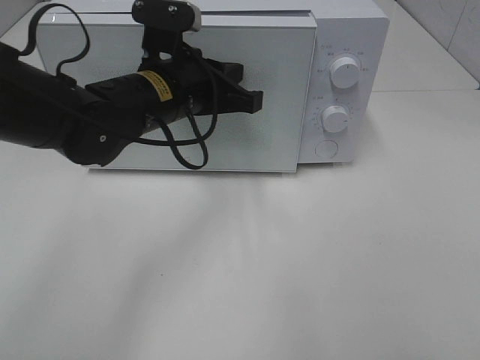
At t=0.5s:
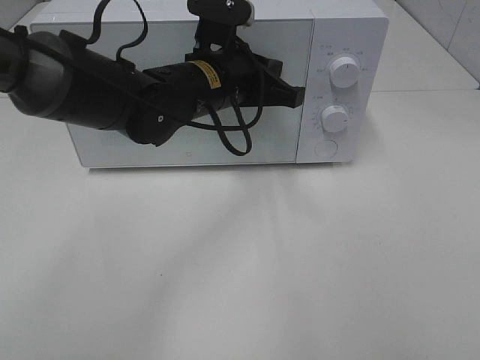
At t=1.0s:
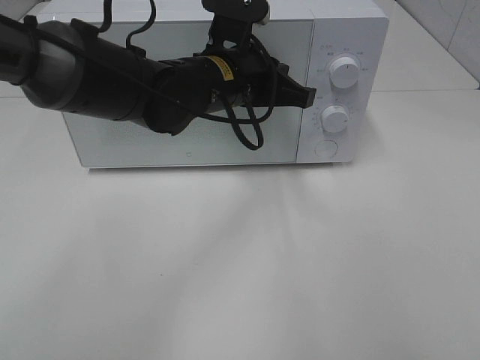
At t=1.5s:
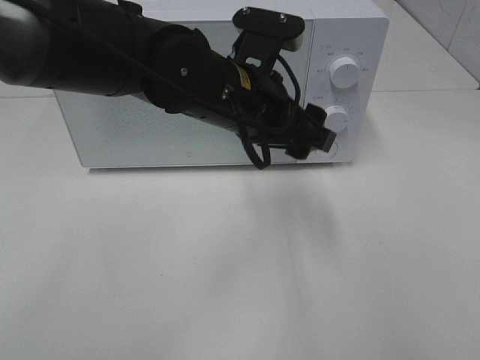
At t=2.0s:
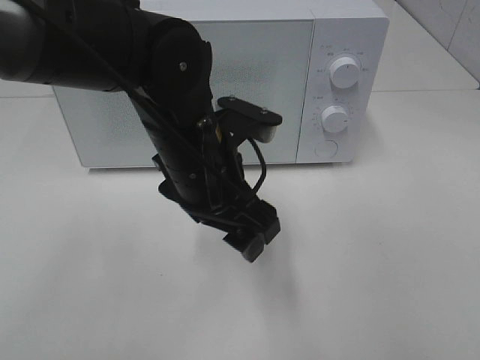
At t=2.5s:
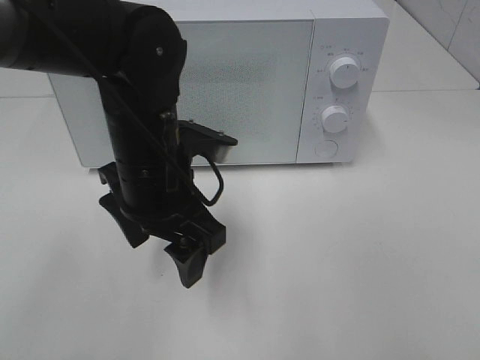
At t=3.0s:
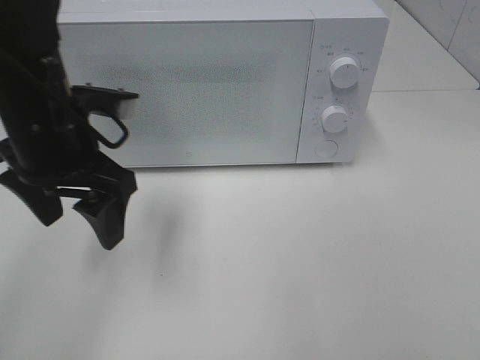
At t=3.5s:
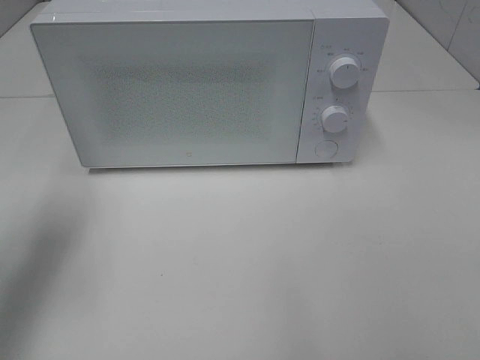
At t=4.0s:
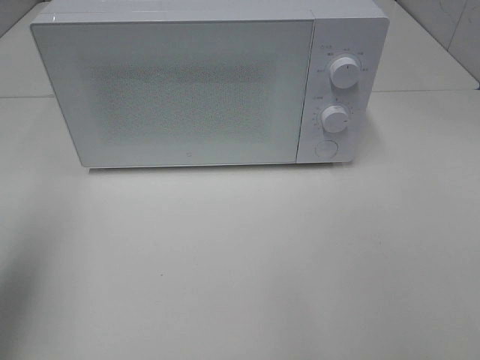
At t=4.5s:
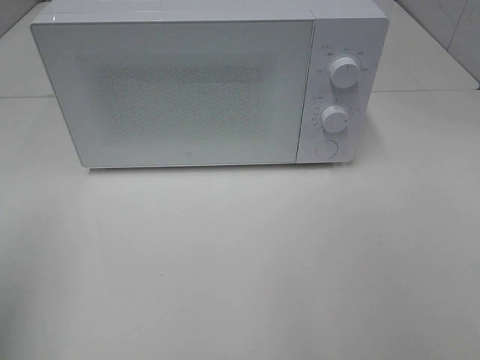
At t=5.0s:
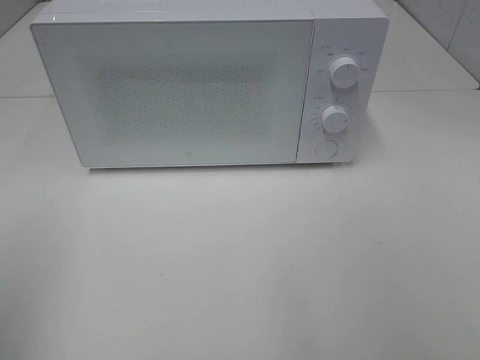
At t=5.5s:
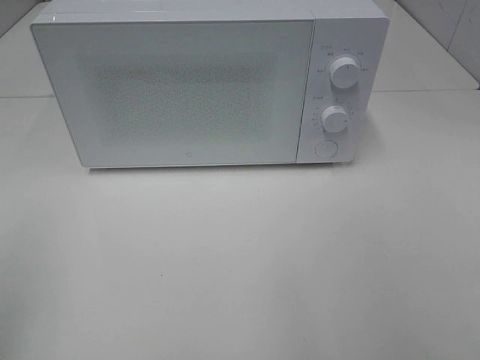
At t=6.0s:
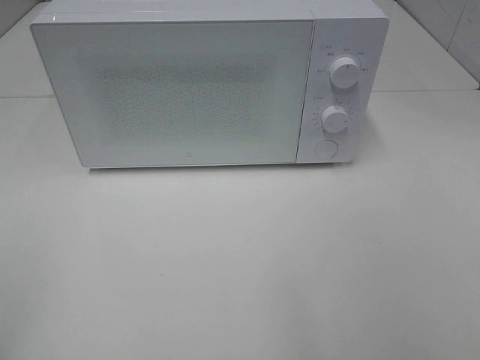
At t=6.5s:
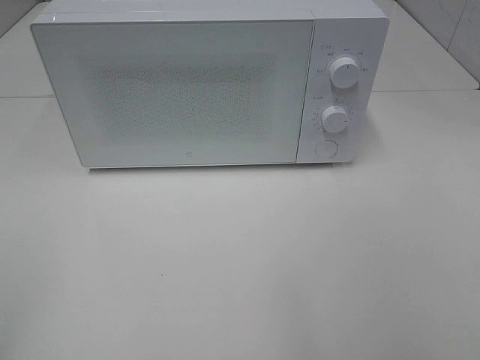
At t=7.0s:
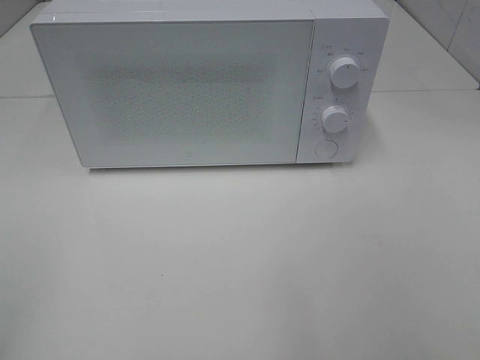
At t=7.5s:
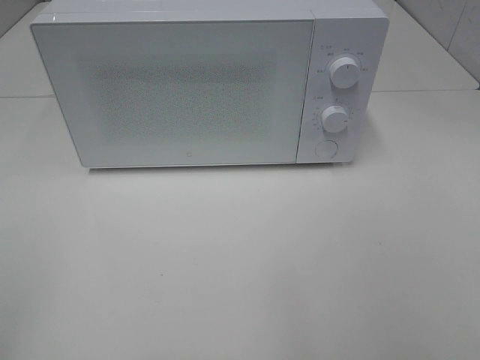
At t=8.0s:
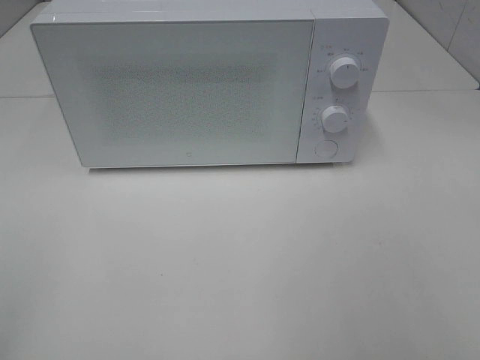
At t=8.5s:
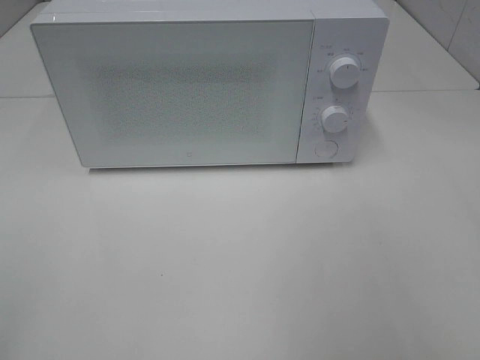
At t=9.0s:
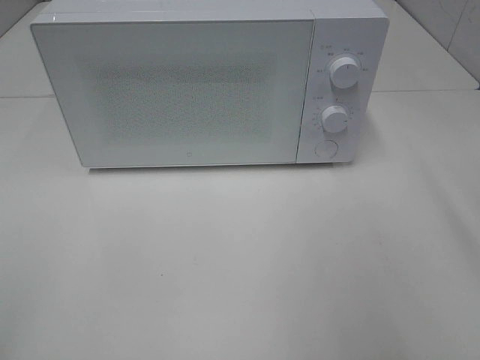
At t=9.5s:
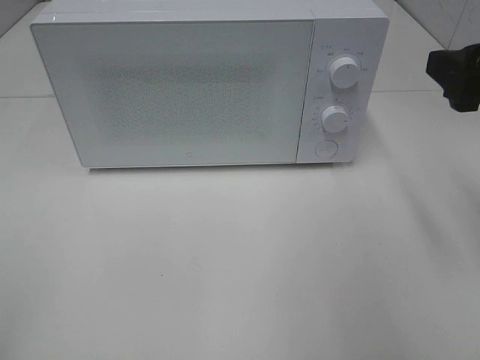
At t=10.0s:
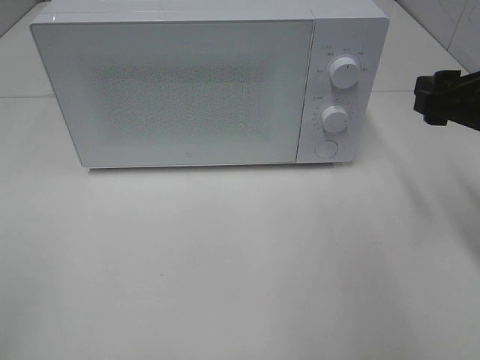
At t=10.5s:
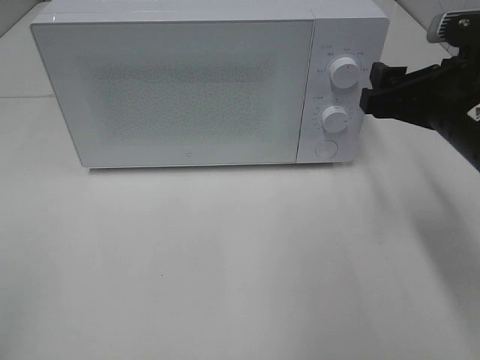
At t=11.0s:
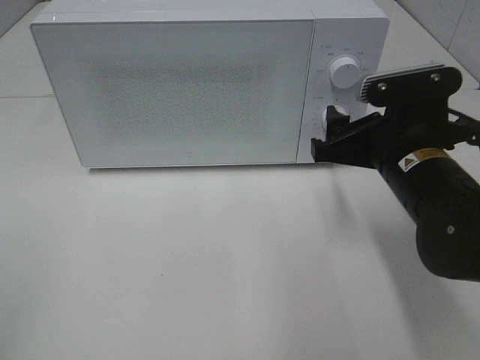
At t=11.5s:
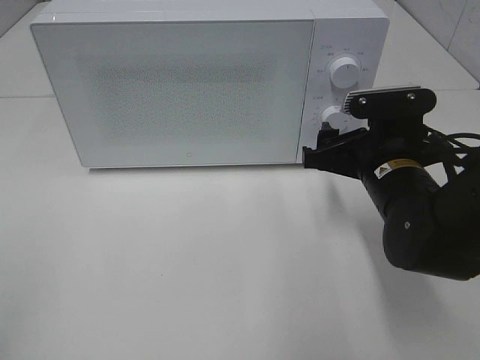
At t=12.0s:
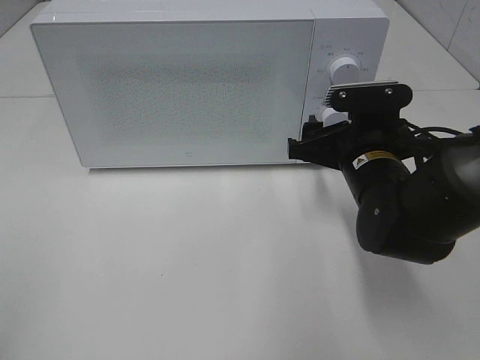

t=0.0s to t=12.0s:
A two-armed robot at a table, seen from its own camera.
Task of the whole recording: Heat the burger.
t=0.0s to t=2.0s: The left gripper is displaced backward by roughly 10 cm, and opens.
t=2.0s to t=4.0s: The left gripper moves to the left, about 30 cm.
t=4.0s to t=6.0s: The left gripper moves backward, some 15 cm.
t=8.0s to t=10.0s: The right gripper goes some 25 cm forward and downward.
t=10.0s to t=12.0s: The right gripper moves to the left and downward, some 15 cm.

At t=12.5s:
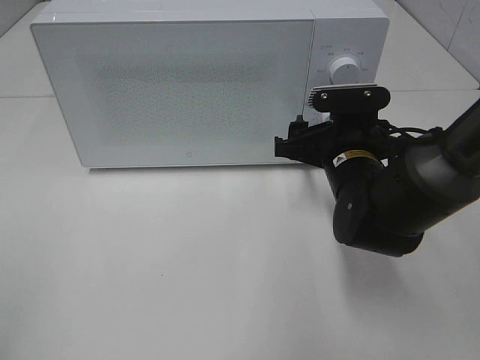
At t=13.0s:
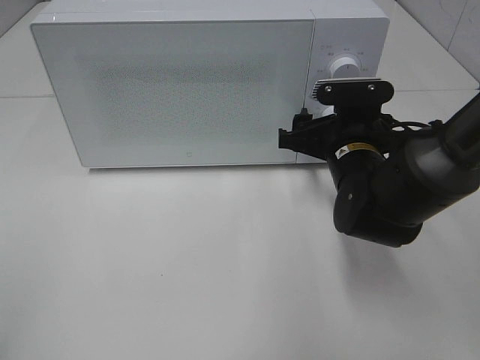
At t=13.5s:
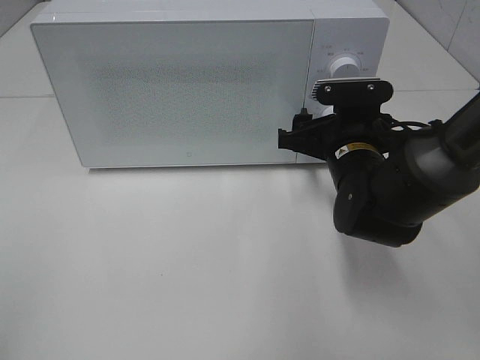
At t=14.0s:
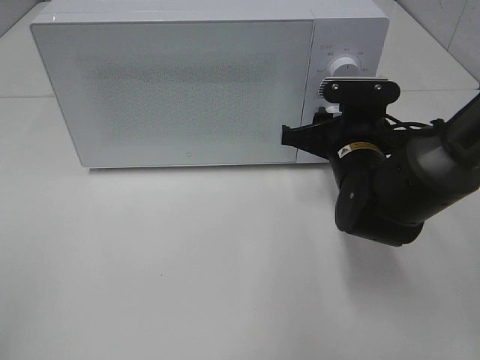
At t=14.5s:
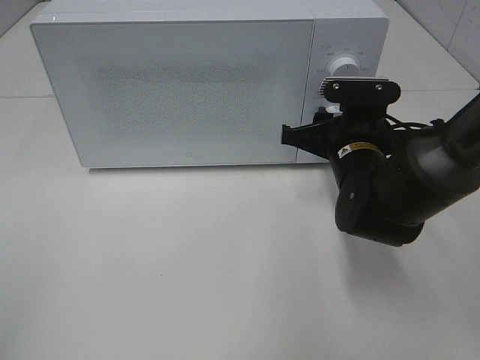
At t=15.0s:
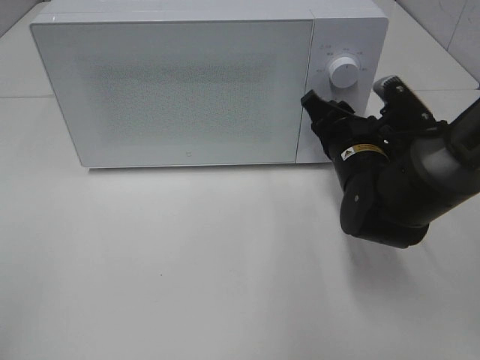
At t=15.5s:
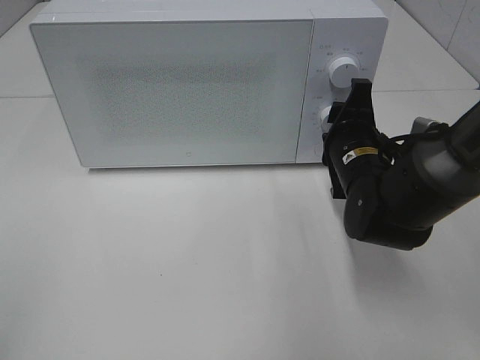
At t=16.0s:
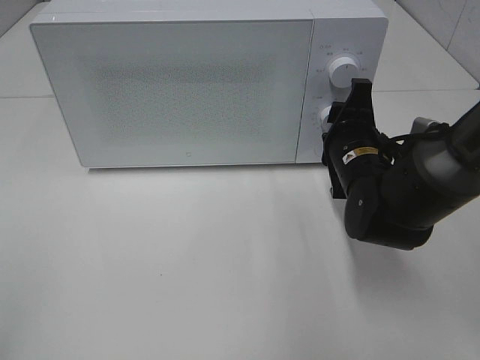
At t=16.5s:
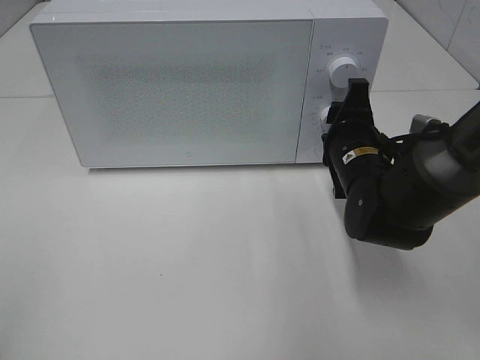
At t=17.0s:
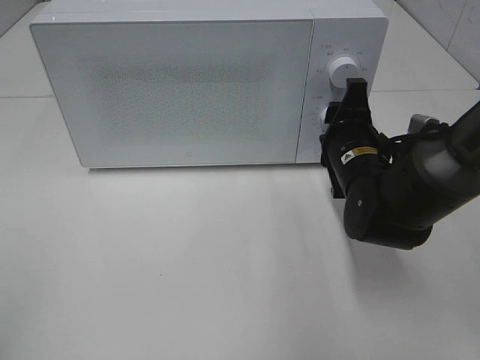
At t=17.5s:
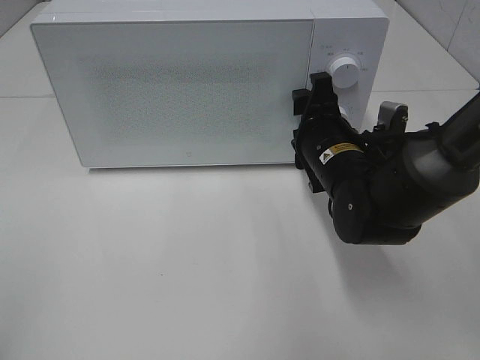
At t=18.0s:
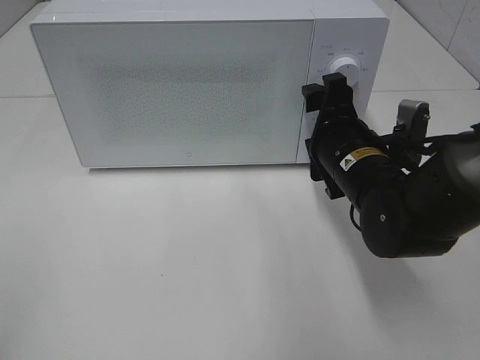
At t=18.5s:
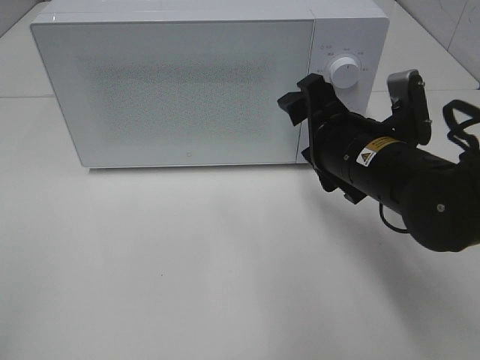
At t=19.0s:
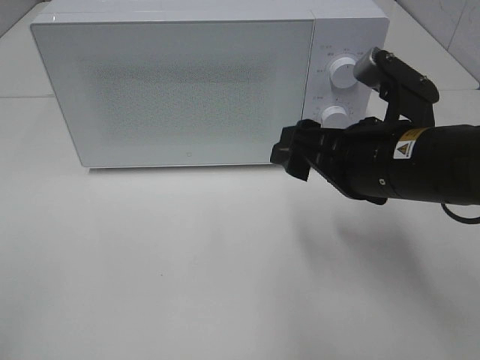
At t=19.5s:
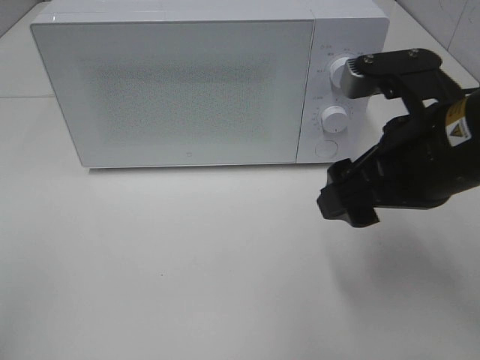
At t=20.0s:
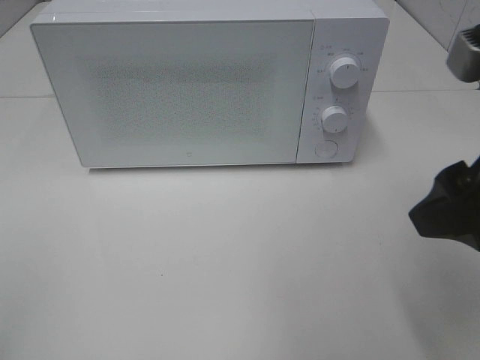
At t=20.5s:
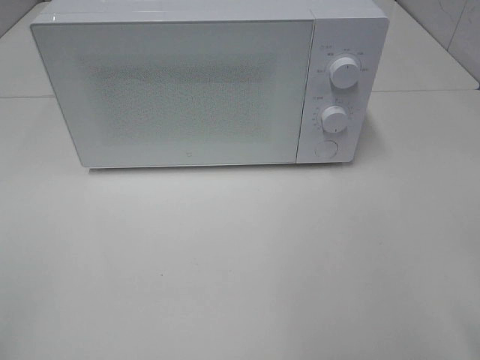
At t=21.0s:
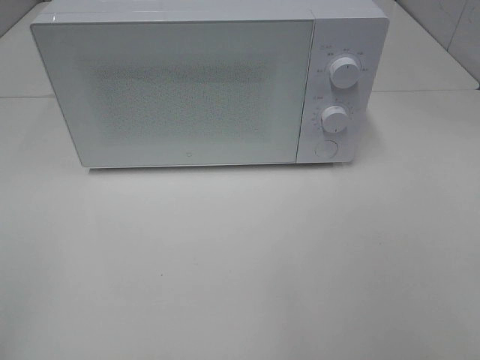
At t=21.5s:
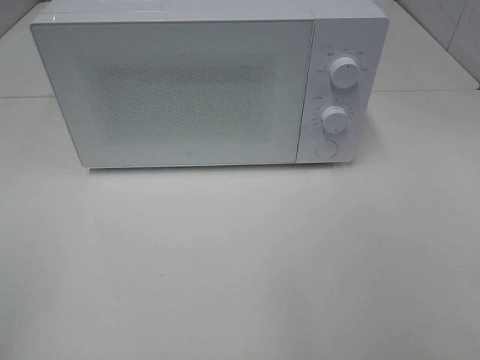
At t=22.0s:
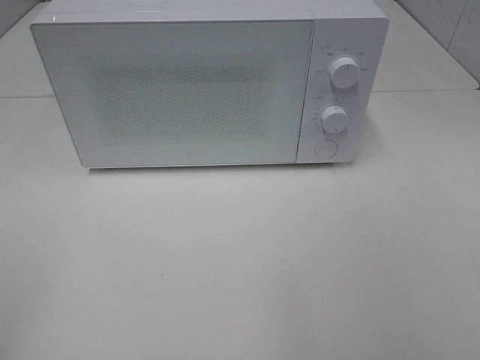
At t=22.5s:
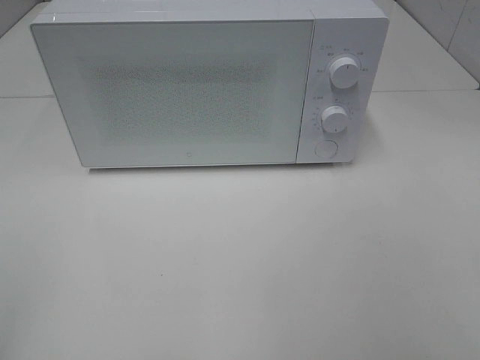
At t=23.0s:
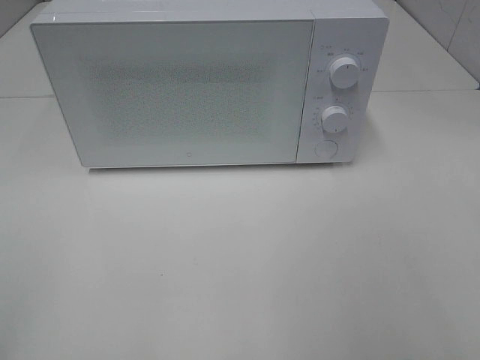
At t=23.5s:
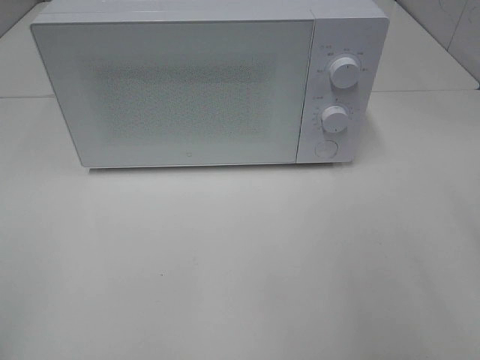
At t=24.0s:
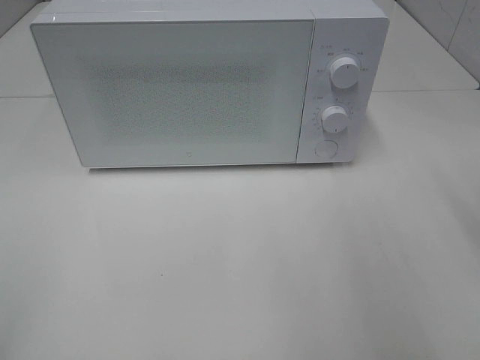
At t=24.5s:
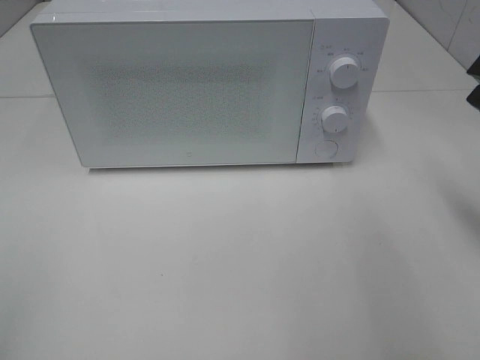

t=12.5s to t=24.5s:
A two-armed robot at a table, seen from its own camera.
Task of the whole recording: Heat the burger.
Step, t=12.5s to t=17.0s: Right hand: twist timer button.
t=12.5s to t=14.5s: The right gripper closes.
t=16.5s to t=18.5s: The right gripper moves backward and upward, roughly 5 cm, and opens up.
t=18.5s to t=20.5s: The right gripper heads backward, upward and to the right, covering approximately 25 cm.
t=22.5s to t=24.5s: The right gripper is displaced forward by some 20 cm, and closes up.

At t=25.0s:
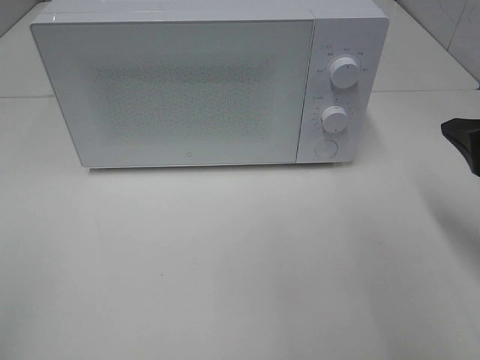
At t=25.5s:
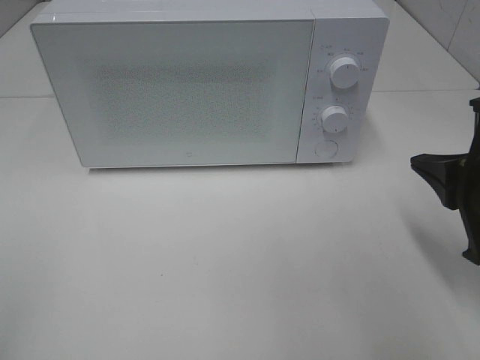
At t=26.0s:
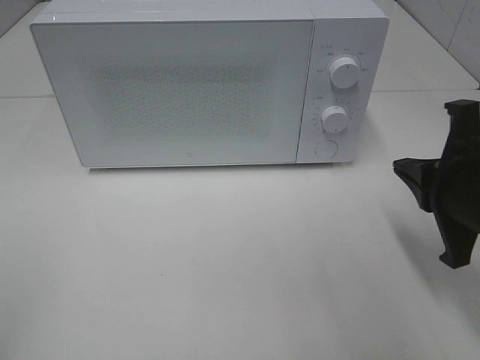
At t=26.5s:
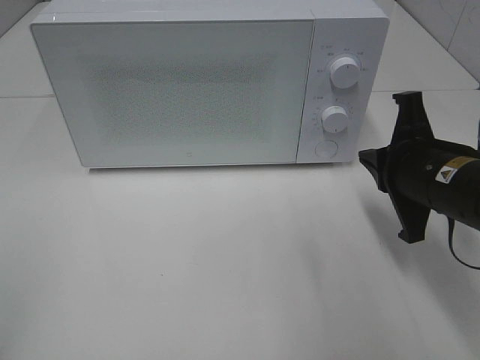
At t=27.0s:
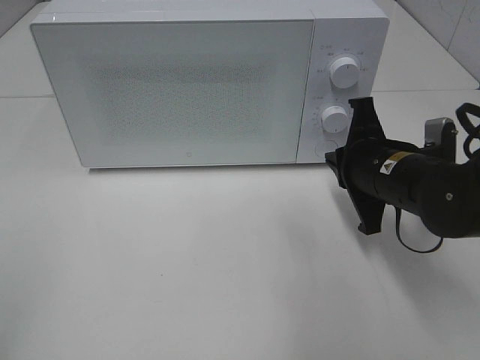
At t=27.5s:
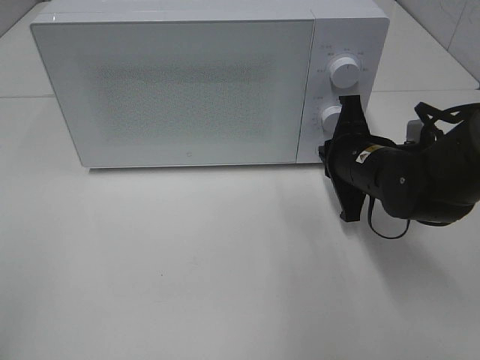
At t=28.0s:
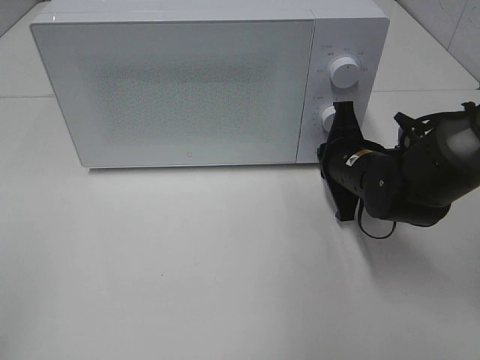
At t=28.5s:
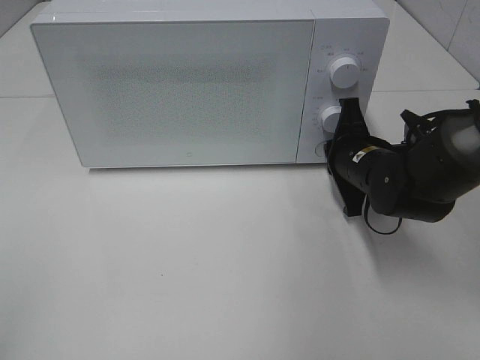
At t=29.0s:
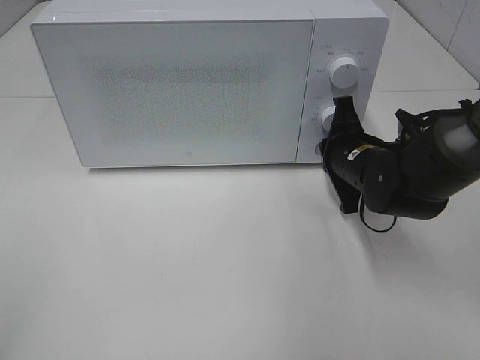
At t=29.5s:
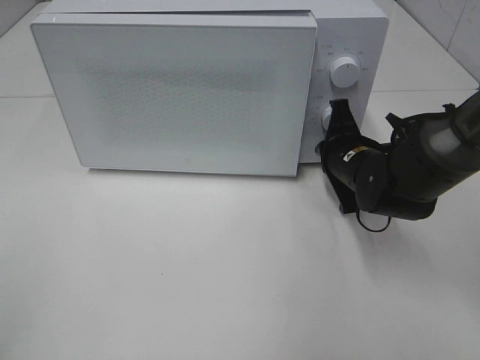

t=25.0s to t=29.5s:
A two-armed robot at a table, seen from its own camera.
Task of the whole recording: Heat the burger.
t=25.0s to t=27.0s: The right gripper is displaced to the left, forward and downward by about 15 cm.
t=27.0s to t=29.5s: The right gripper goes about 5 cm forward.
